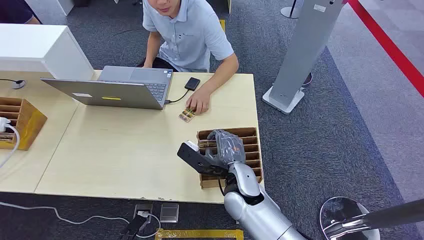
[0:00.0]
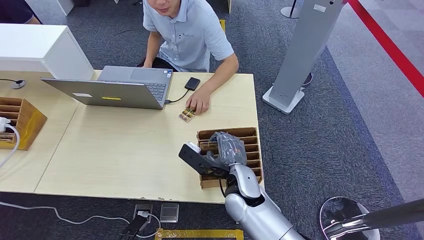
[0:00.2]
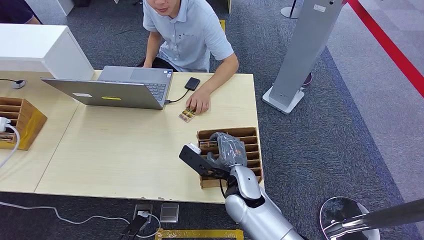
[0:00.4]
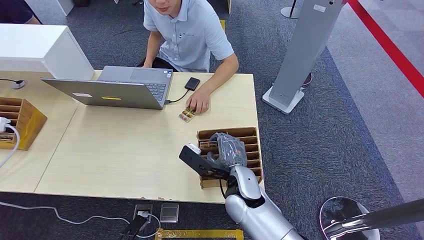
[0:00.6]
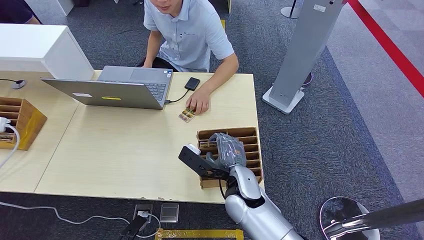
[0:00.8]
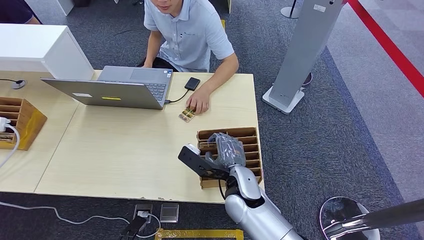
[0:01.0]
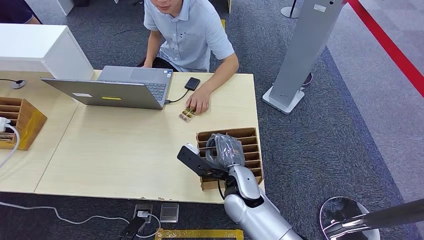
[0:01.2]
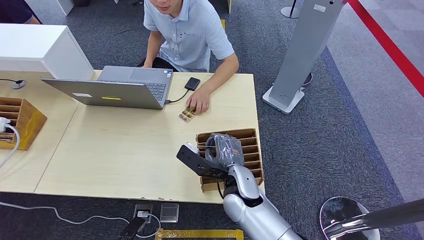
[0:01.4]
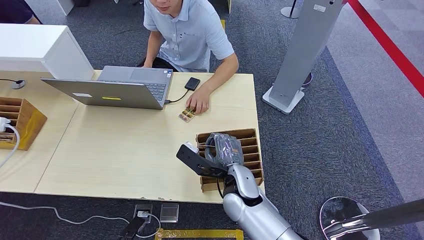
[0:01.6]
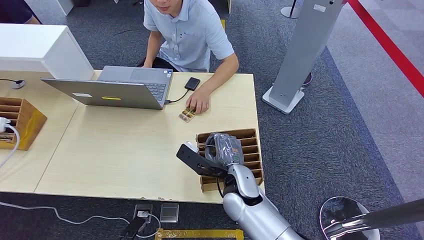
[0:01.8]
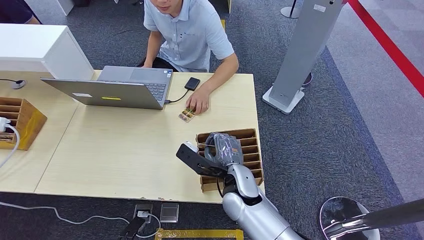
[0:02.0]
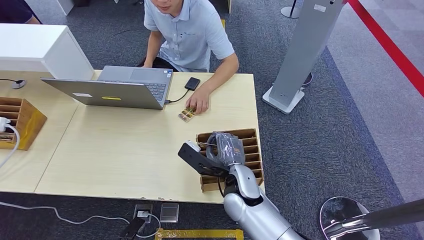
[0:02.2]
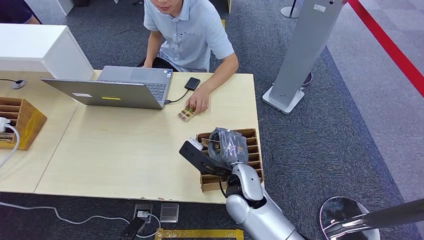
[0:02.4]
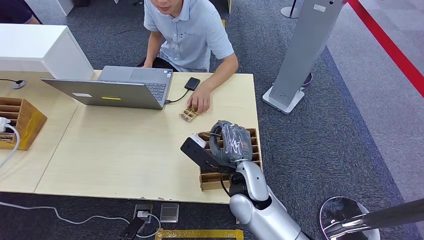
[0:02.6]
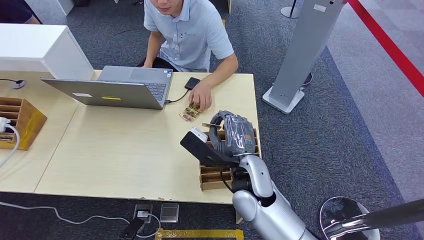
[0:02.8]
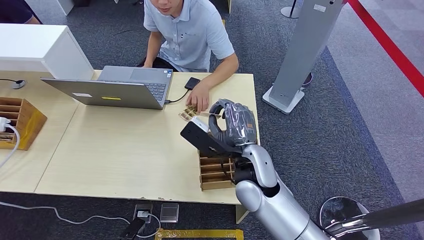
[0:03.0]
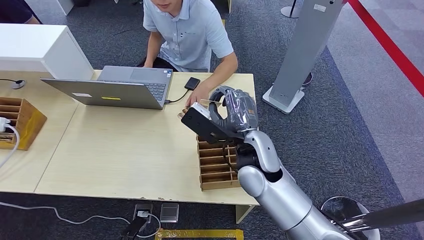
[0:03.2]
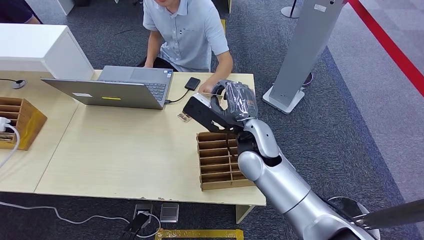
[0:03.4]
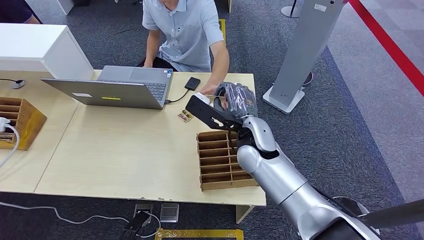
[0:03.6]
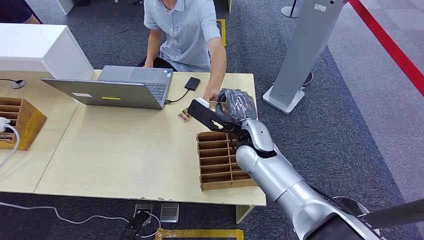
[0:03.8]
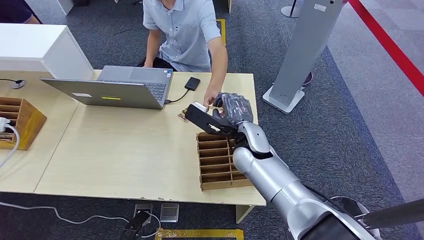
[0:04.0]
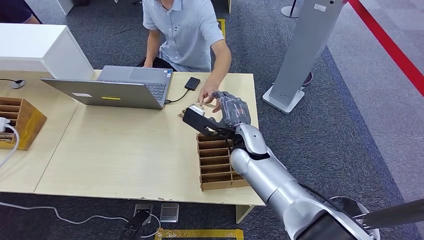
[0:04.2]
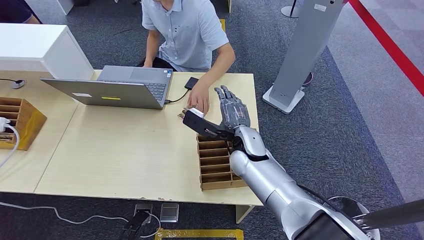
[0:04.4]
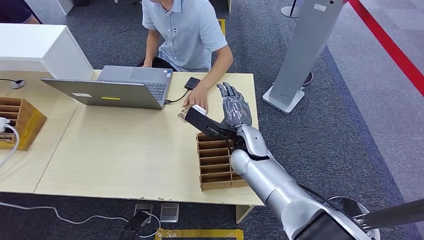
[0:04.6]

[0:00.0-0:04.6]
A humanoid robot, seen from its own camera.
Step, 0:00.0 to 0:02.6: Pick up the key card from the card box.
Step, 0:03.6 to 0:04.6: Hand the key card to the target.
0:01.6 to 0:03.0: The right hand travels upward by approximately 10 cm.
0:03.0 to 0:04.6: The right hand moves forward, about 10 cm.
